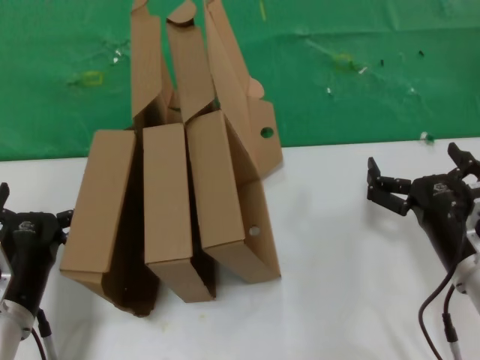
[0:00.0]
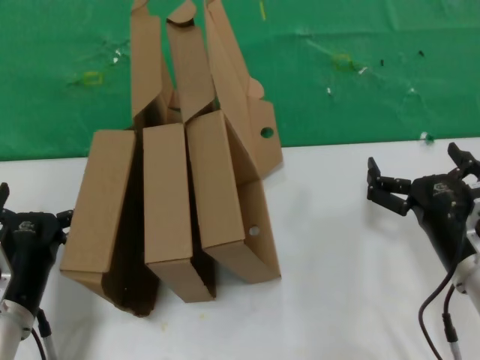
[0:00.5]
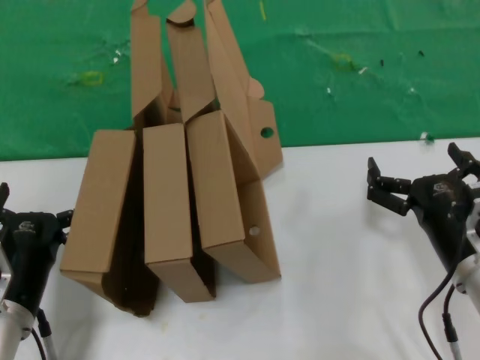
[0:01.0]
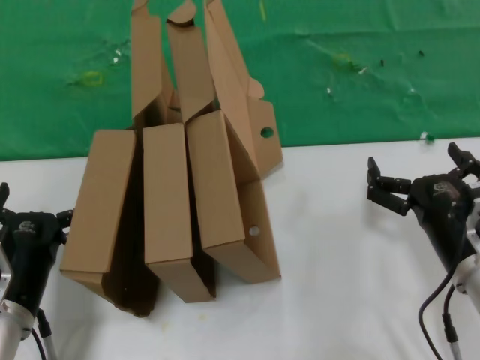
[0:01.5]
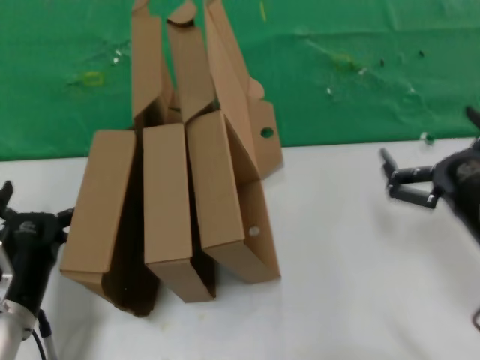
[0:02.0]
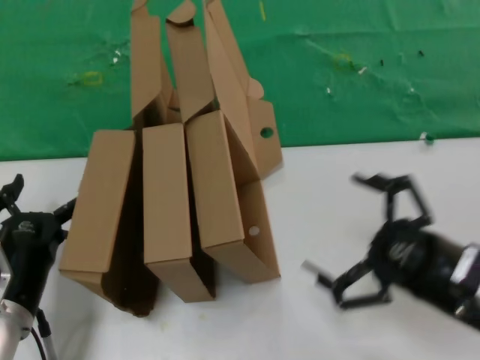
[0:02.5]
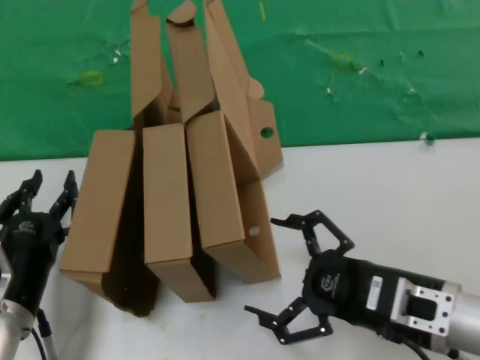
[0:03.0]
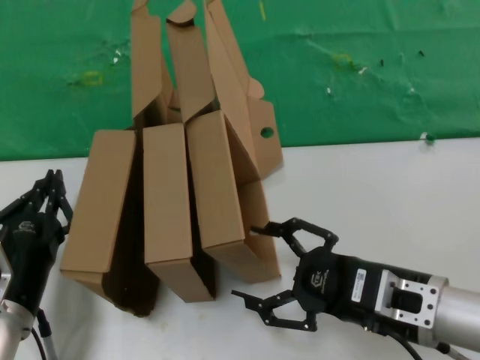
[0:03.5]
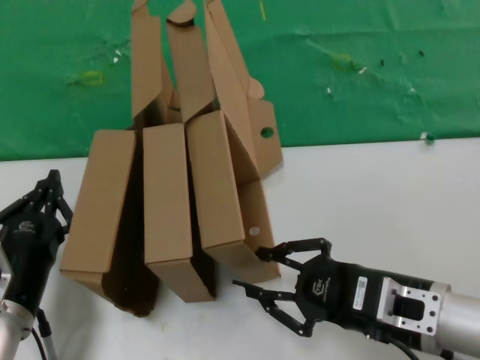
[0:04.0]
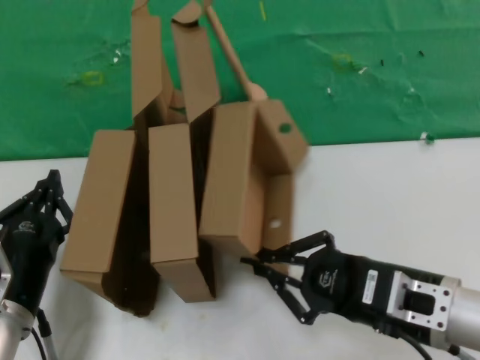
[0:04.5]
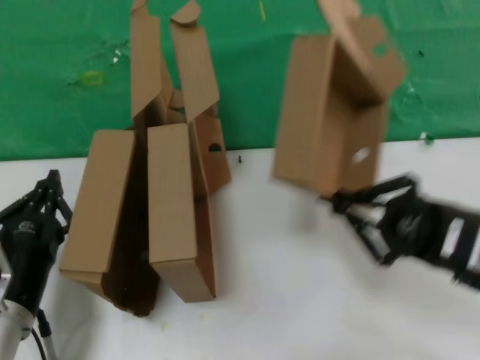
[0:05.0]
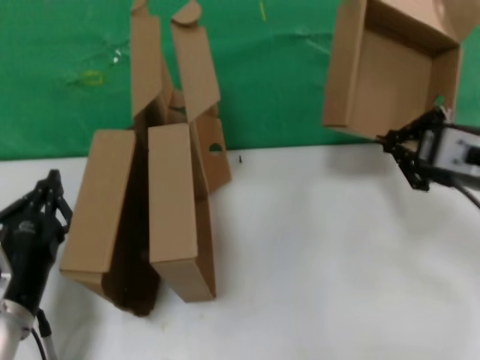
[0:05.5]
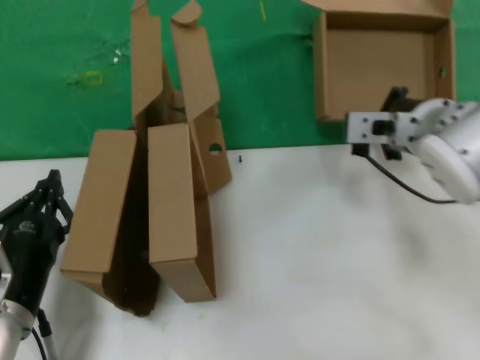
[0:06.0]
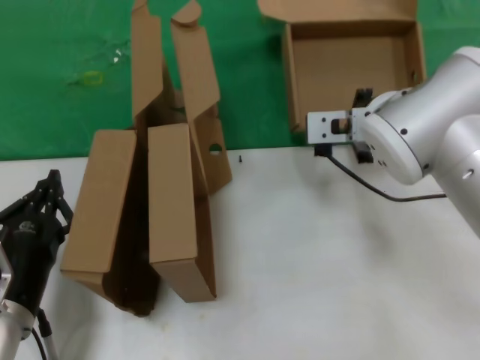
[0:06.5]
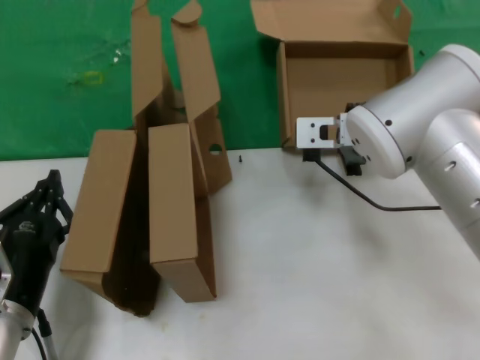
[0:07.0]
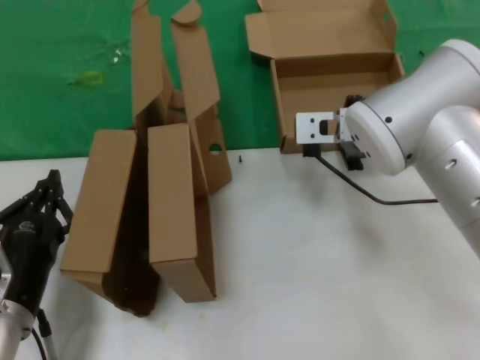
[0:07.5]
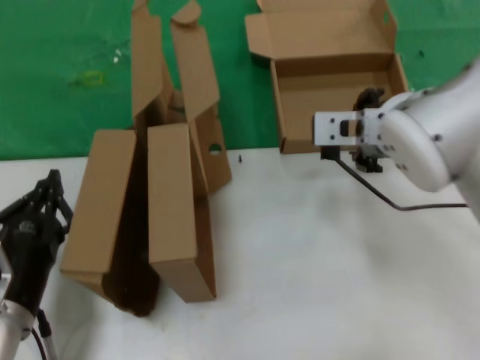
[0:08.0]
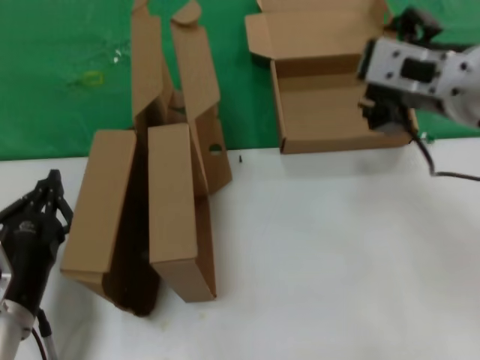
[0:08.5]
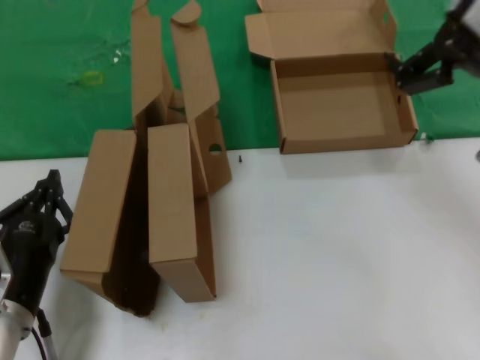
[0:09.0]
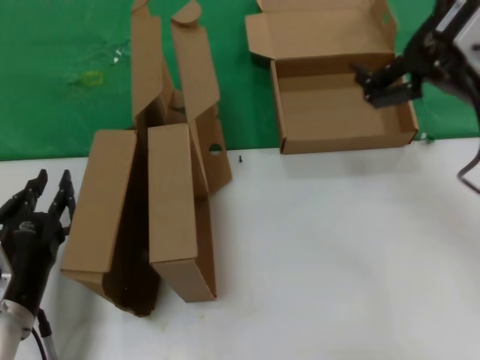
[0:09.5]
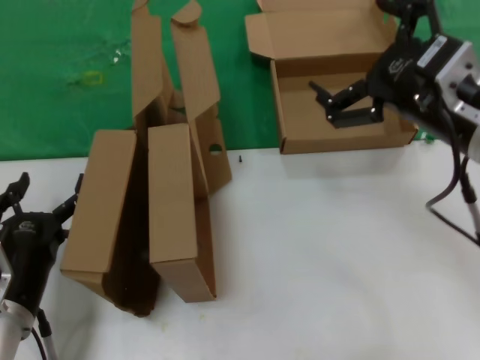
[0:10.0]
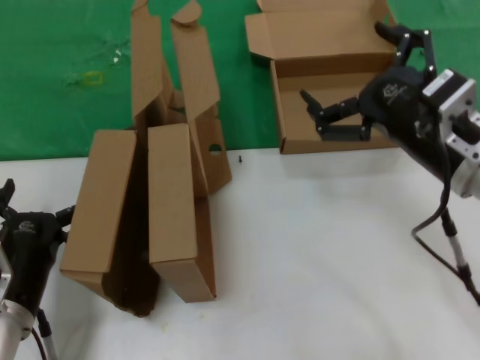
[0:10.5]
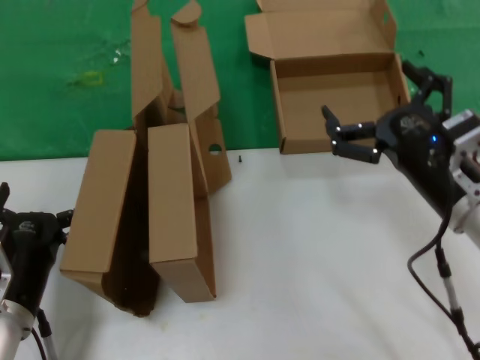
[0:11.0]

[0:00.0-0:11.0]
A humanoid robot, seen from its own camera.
Task of the whole recording: pick up the paper box and put it at the back.
Step, 0:00.0 to 0:04.5: Grasp the paper box.
Step, 0:05.0 to 0:07.5: Place the paper box on the table.
0:00.0 to 0:02.0: The right hand ends up about 5 cm from where it was.
0:02.0 to 0:03.5: The right hand moves to the left, approximately 5 cm.
0:03.5 to 0:05.5: The right hand heads upward, to the right and forward, covering about 15 cm.
0:05.5 to 0:07.5: The right hand shifts some 20 cm to the left and forward.
0:07.5 to 0:09.0: The right hand shifts some 20 cm backward, to the right and upward.
0:09.0 to 0:11.0: The right hand moves downward, some 20 cm.
